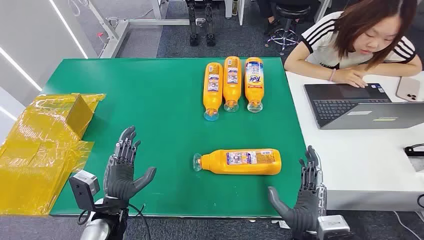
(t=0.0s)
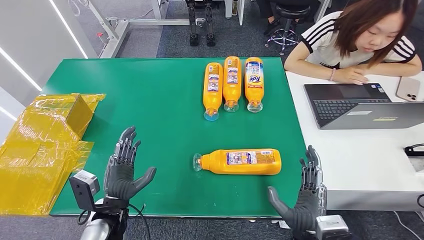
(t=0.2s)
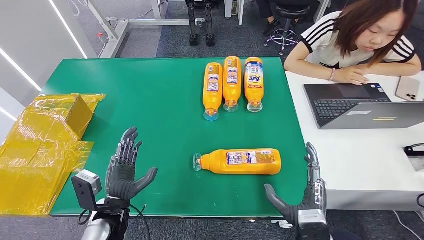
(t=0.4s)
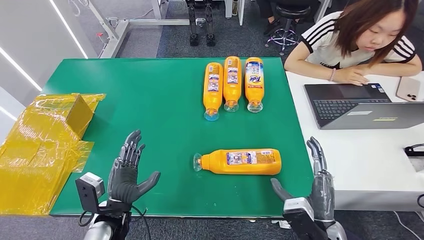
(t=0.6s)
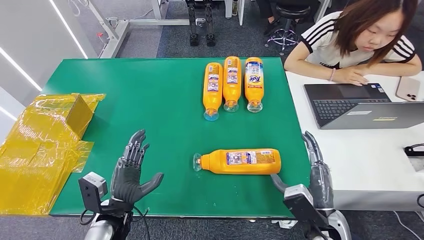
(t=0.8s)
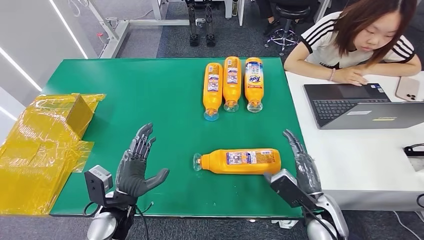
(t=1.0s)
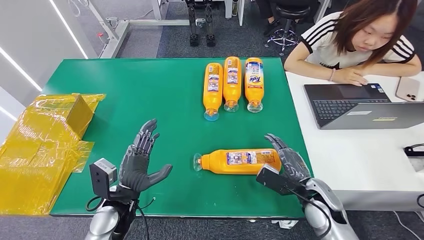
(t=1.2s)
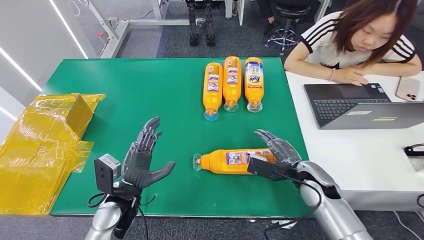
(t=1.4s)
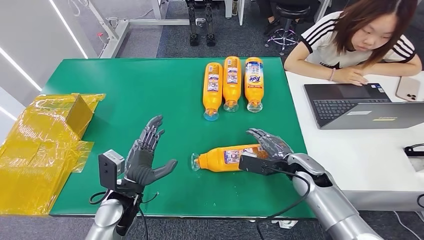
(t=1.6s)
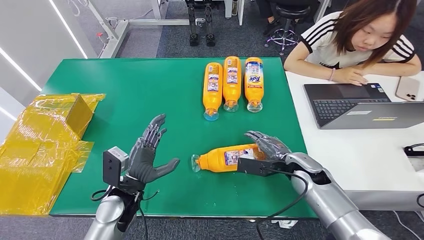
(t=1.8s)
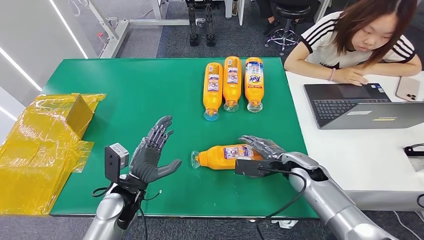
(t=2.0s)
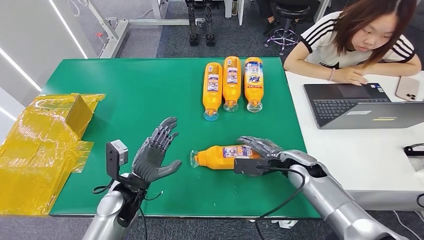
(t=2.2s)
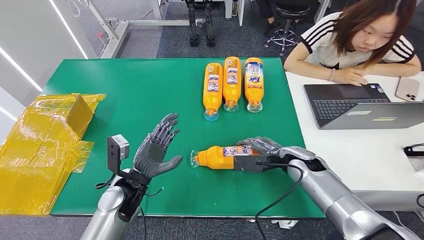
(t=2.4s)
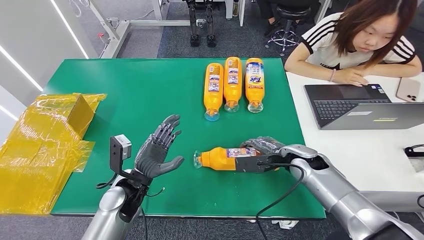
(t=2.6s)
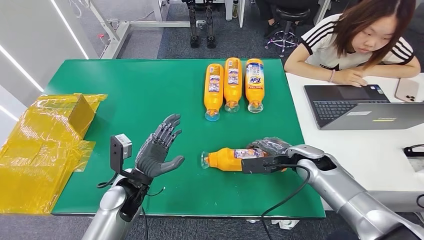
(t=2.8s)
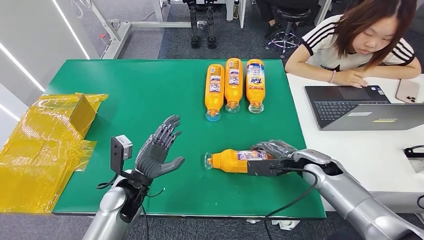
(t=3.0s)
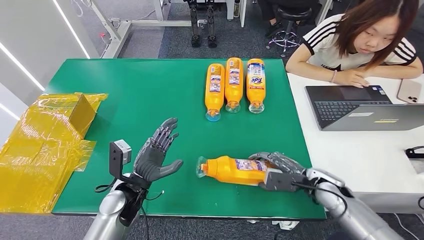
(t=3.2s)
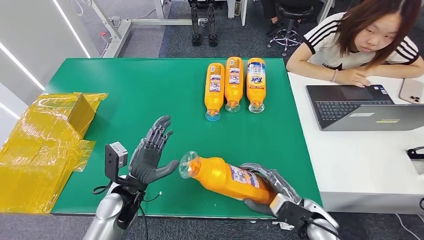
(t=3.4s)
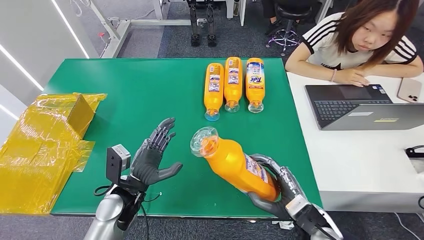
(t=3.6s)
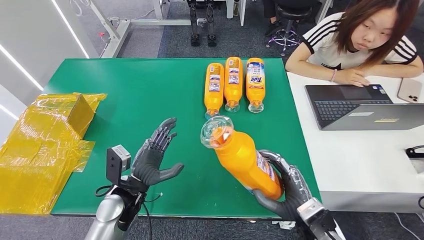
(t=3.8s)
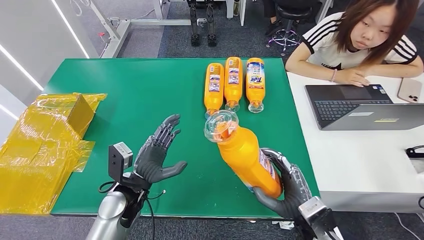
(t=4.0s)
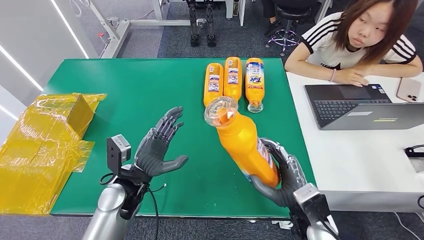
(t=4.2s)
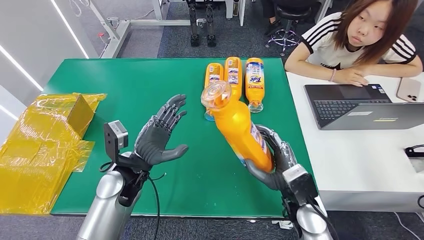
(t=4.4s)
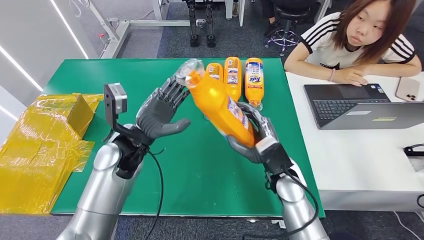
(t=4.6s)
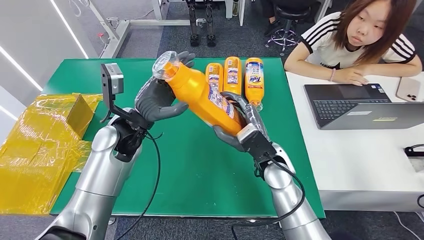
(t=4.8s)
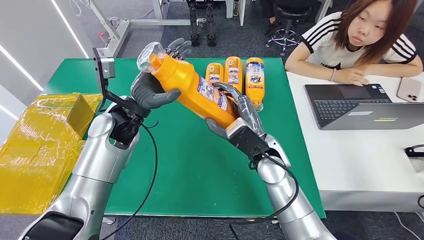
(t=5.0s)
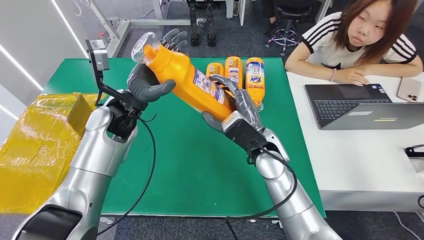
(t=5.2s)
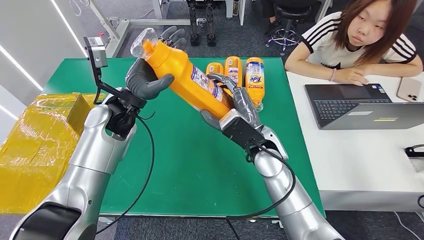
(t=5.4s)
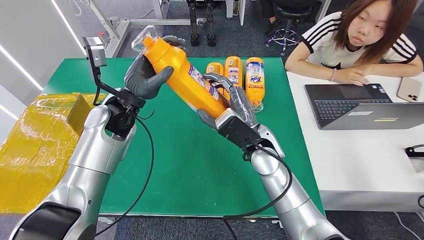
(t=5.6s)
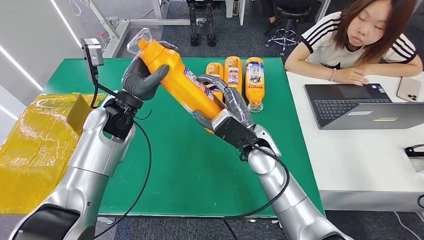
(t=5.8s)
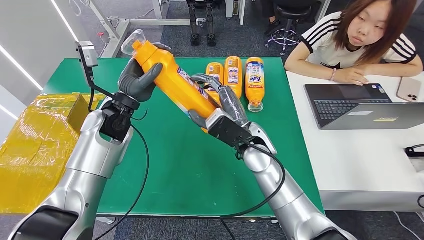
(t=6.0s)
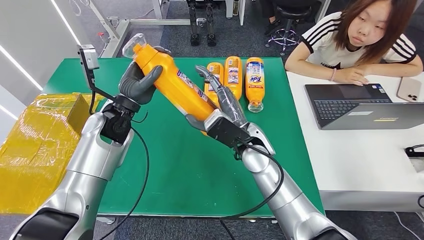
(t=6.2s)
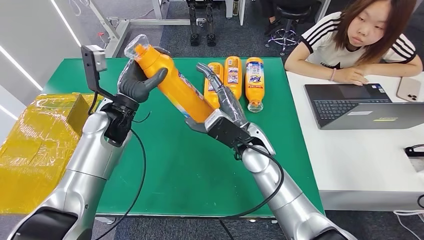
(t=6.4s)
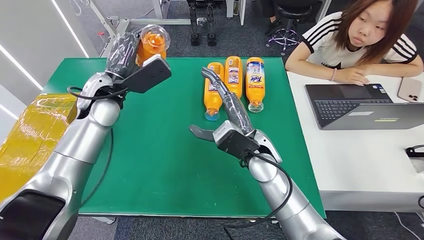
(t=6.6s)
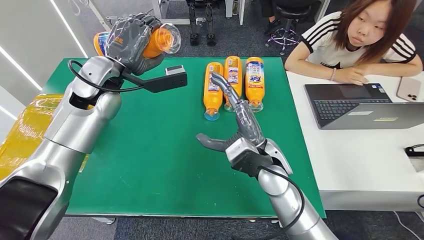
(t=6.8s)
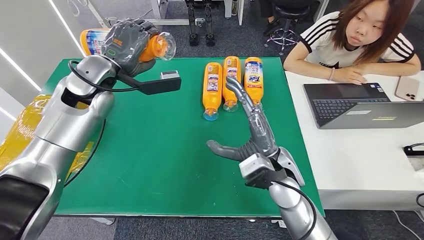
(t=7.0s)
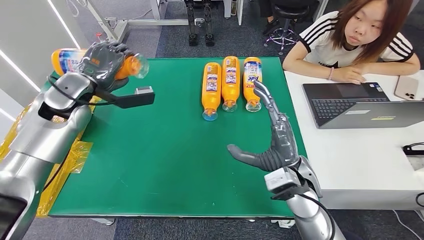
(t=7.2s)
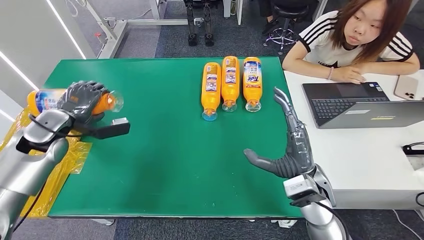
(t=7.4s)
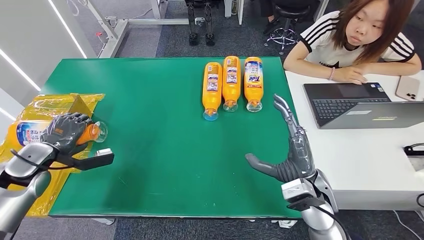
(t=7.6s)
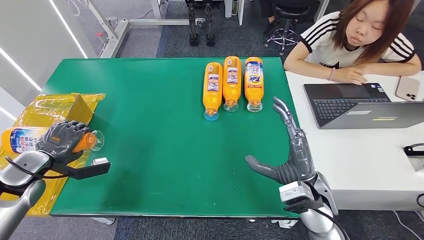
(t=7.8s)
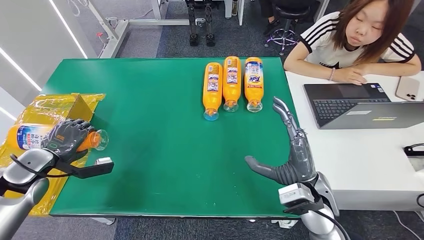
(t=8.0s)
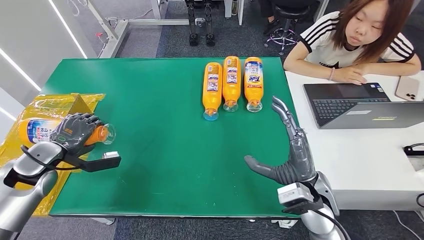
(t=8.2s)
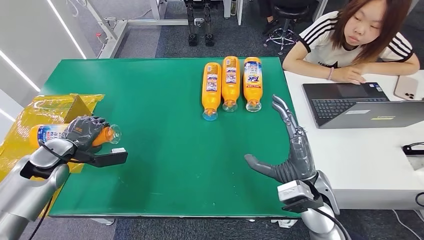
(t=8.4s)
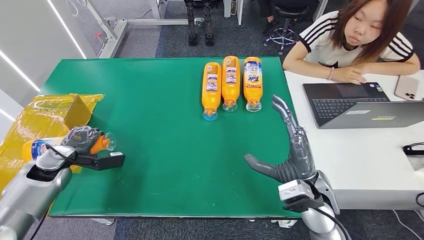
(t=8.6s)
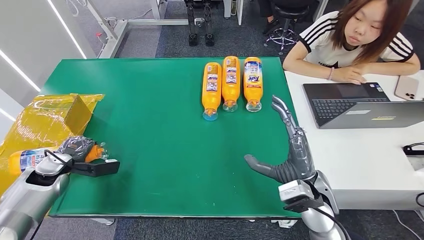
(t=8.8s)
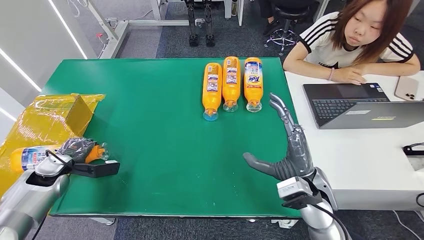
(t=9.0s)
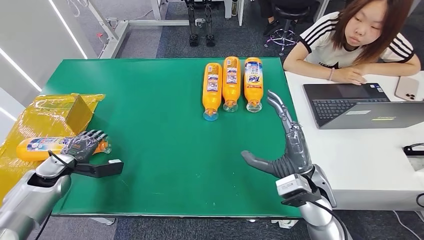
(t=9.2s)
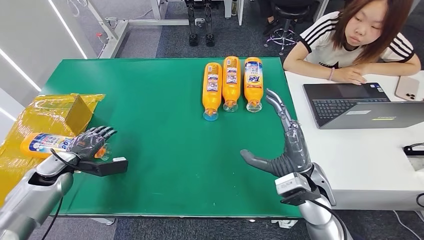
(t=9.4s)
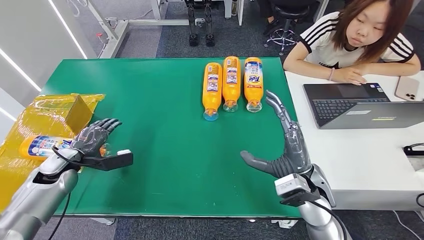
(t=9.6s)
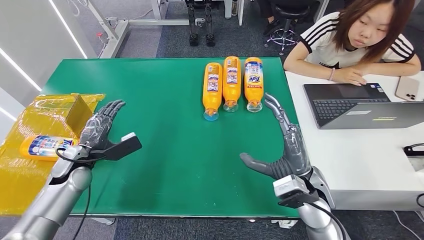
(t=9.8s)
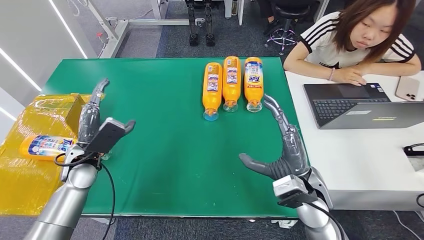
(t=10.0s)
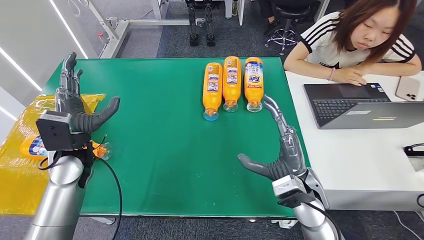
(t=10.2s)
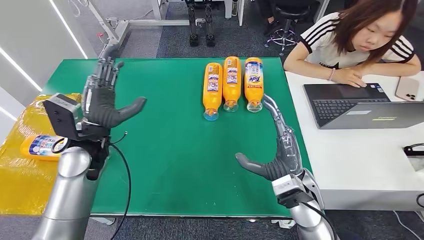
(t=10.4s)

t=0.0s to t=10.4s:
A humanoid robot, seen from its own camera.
Step, t=0.0s to t=3.8s: Pick up the bottle from the table.
Step, t=4.2s to t=10.2s: Turn the bottle to the front side.
t=7.4s to t=9.0s: The left hand is displaced downward and to the left by about 15 cm.
